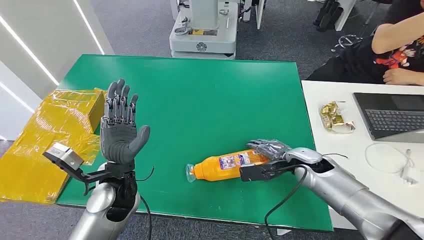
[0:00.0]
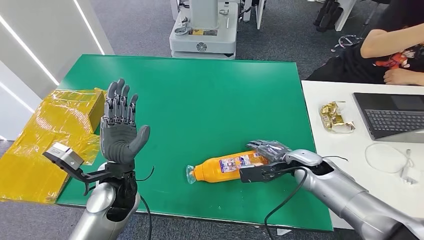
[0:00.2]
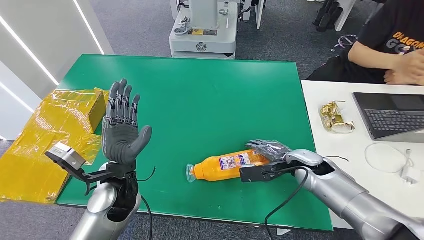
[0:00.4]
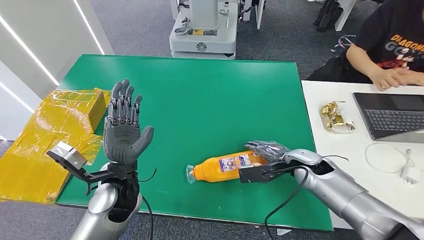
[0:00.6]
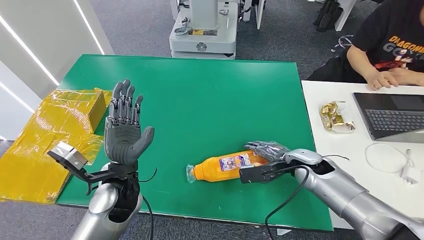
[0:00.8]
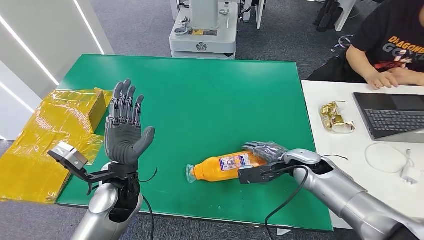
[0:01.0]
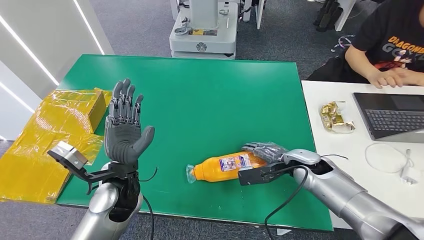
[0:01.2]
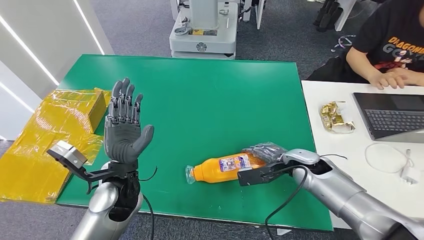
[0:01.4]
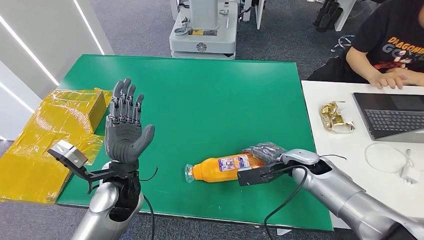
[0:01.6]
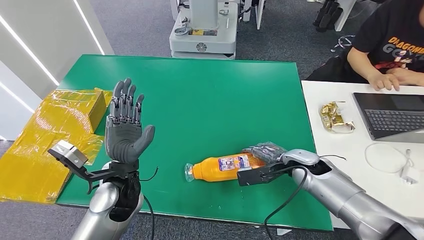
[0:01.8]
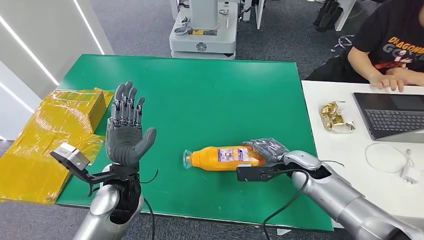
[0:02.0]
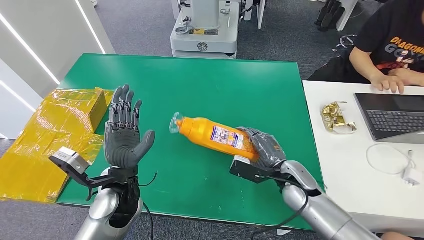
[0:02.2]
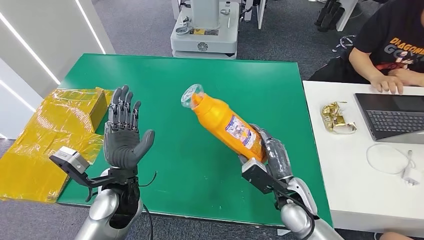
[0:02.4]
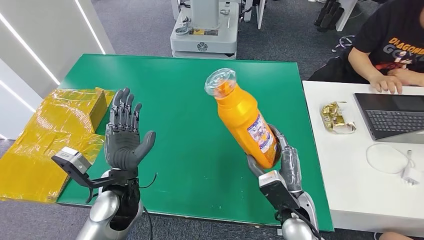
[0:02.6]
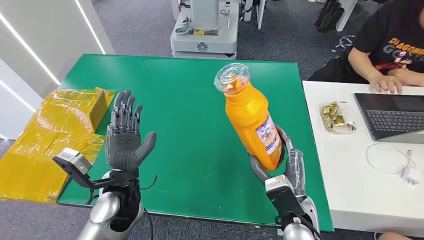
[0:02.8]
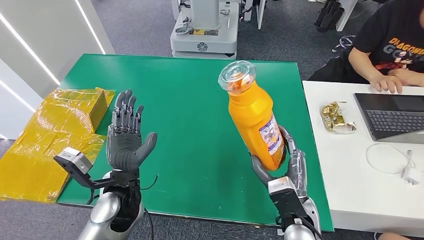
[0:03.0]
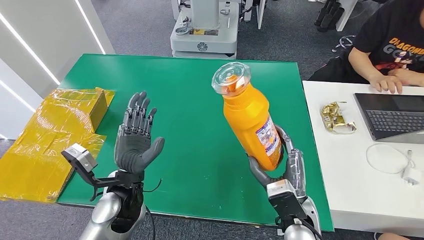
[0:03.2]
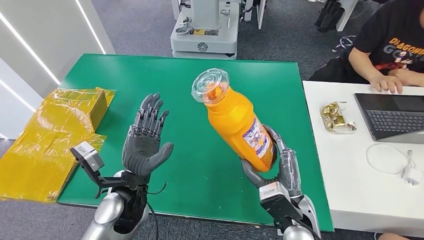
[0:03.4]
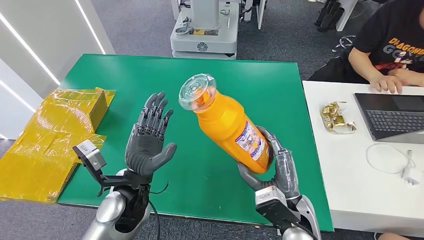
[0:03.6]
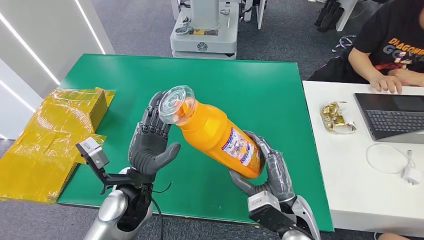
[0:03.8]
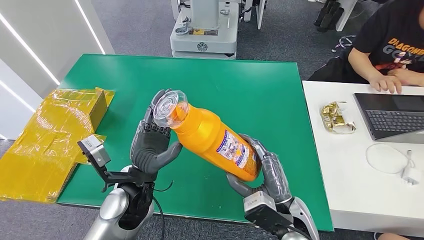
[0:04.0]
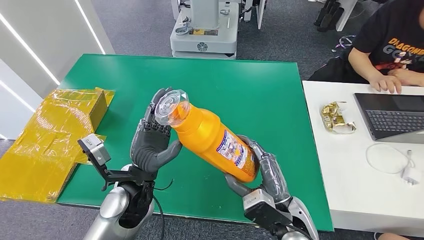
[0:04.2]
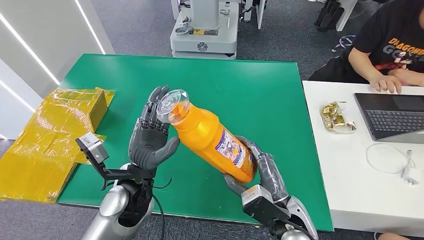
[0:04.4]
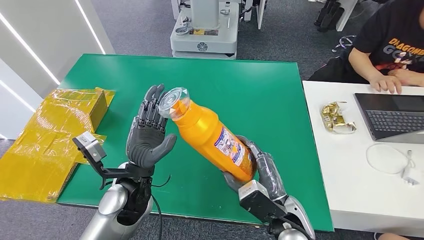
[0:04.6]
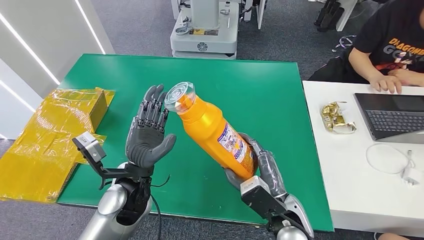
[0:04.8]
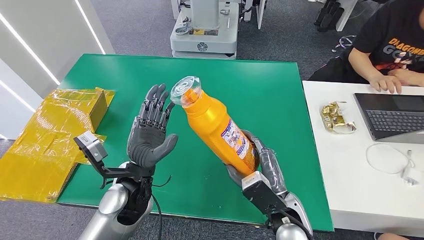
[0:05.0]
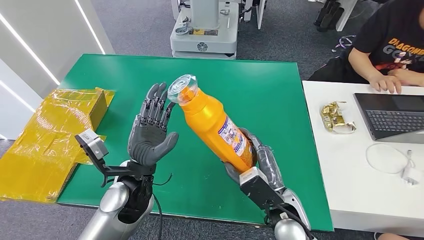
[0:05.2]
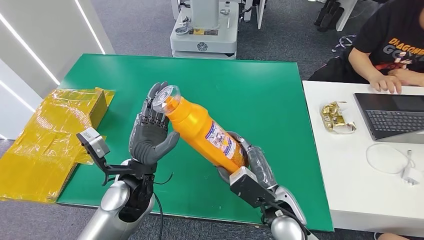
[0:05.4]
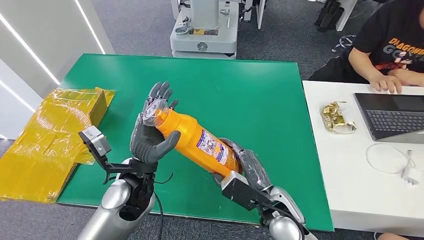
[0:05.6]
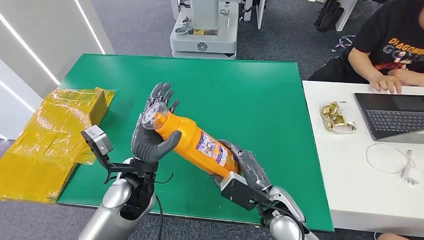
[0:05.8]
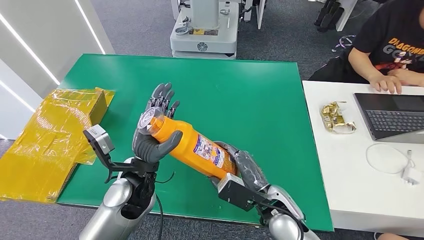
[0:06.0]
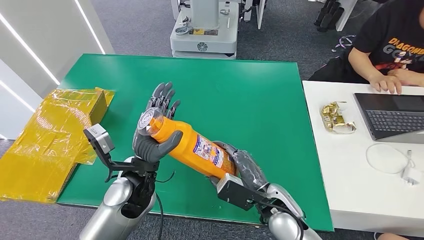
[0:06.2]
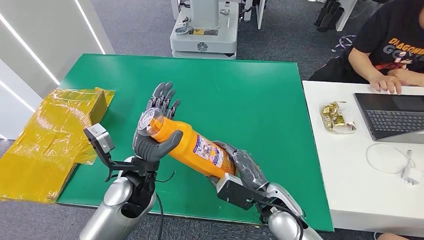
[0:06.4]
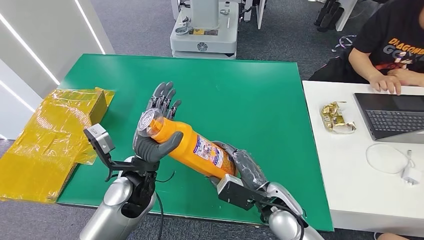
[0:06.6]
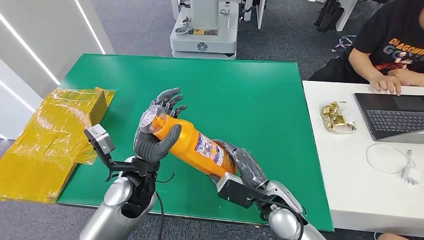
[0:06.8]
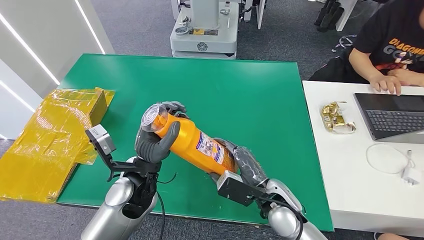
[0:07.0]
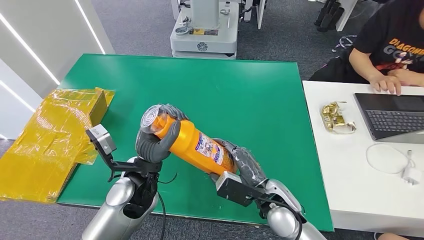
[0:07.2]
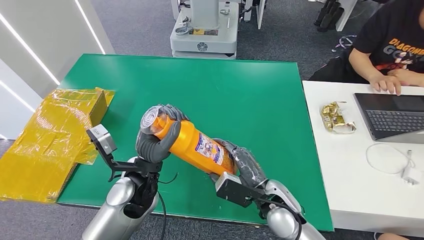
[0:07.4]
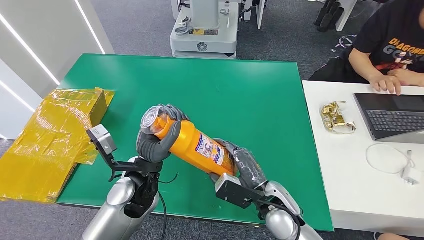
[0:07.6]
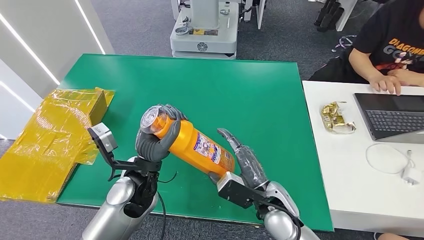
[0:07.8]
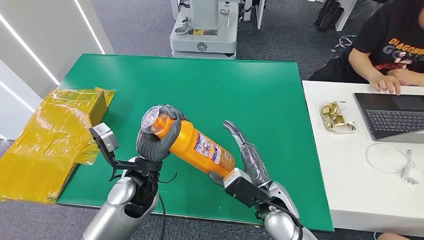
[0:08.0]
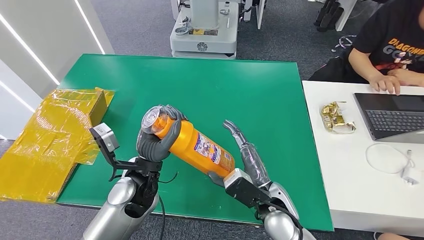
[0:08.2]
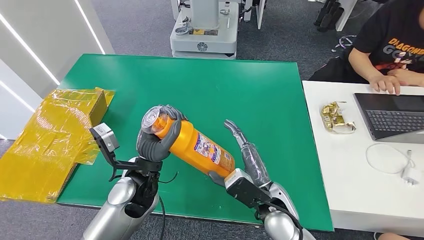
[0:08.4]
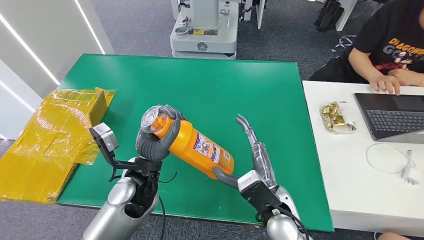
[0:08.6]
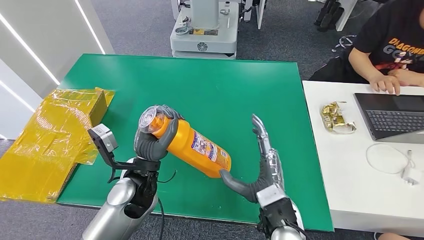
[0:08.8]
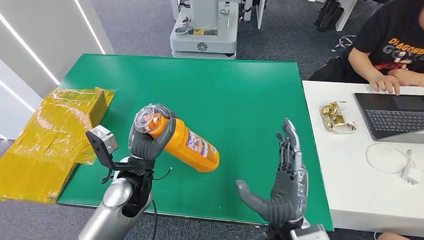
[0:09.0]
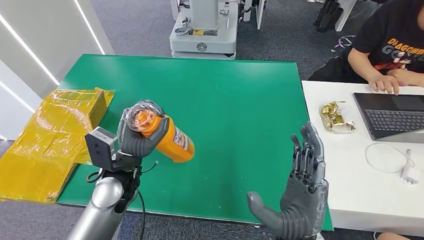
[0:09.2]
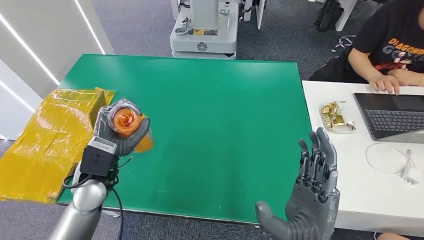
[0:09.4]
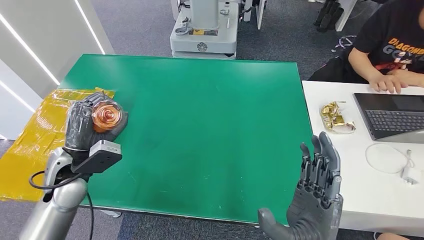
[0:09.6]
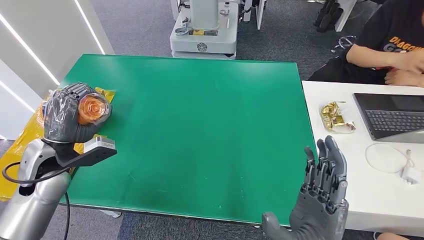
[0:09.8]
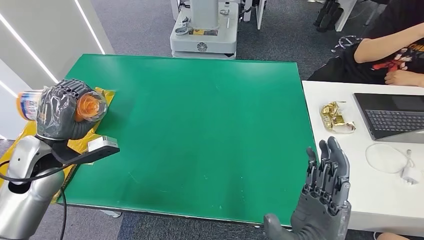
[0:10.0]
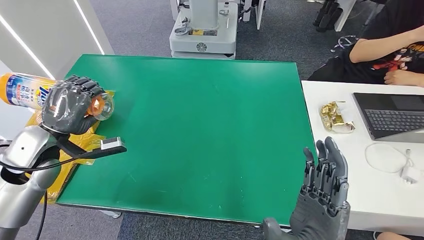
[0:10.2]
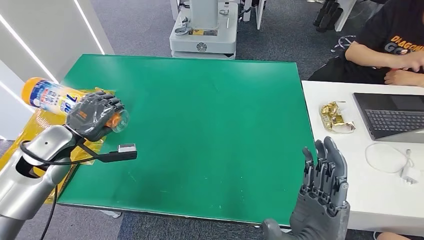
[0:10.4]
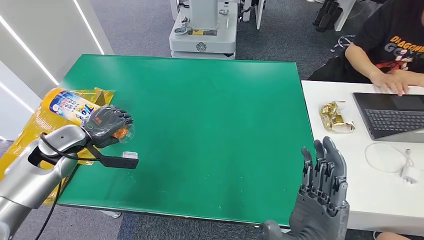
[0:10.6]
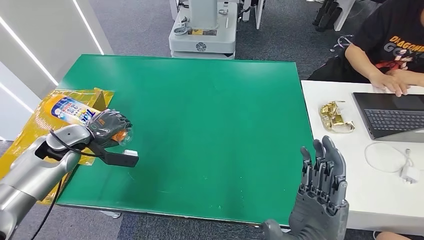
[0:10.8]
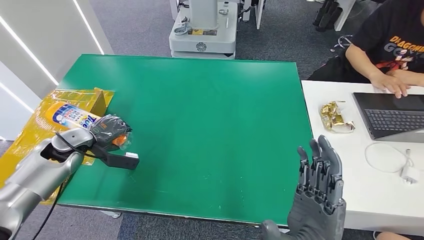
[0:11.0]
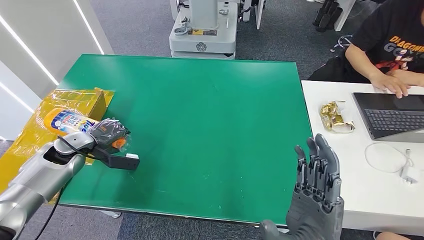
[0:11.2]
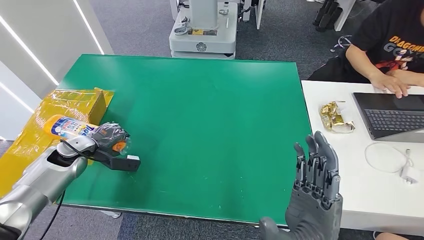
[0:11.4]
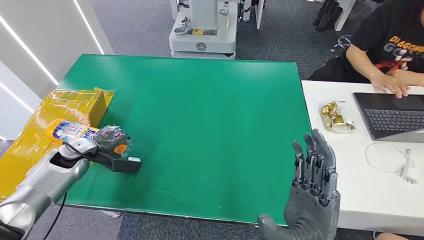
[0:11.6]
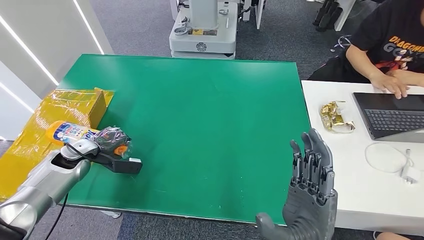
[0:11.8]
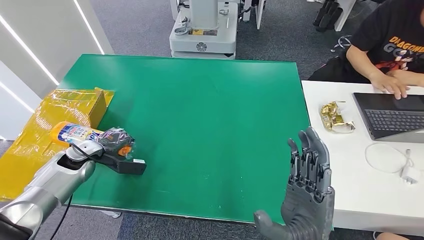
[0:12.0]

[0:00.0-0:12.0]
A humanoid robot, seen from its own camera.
Step, 0:00.0 to 0:04.2: Pick up the bottle from the table.
0:04.4 to 0:07.6: There are only small adjustments of the hands.
0:07.6 to 0:09.0: The right hand moves backward, roughly 10 cm.
0:10.4 to 0:12.0: The left hand moves downward, approximately 10 cm.

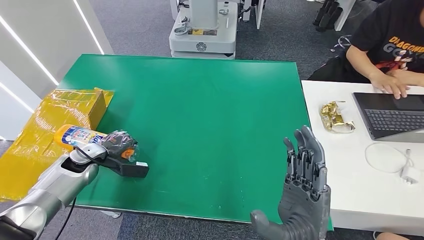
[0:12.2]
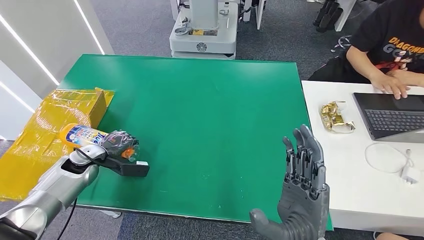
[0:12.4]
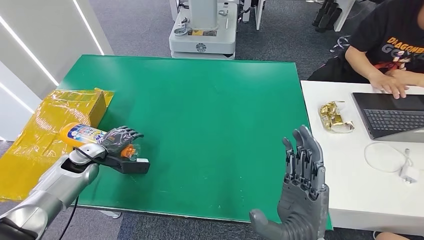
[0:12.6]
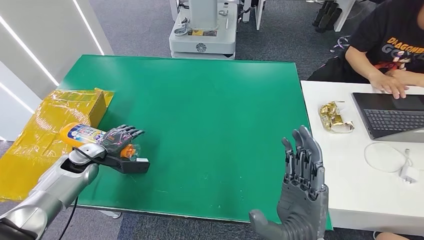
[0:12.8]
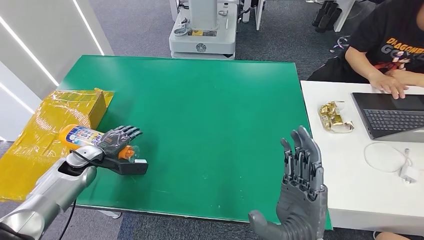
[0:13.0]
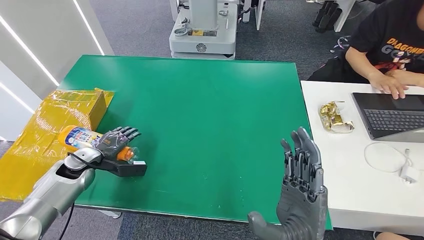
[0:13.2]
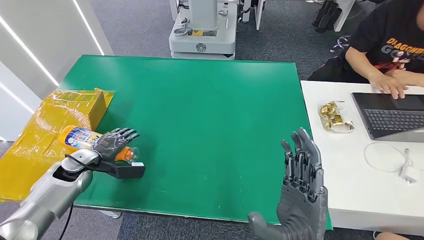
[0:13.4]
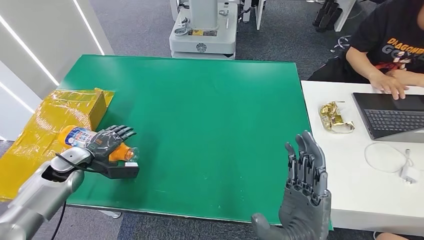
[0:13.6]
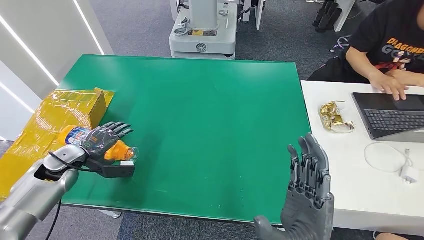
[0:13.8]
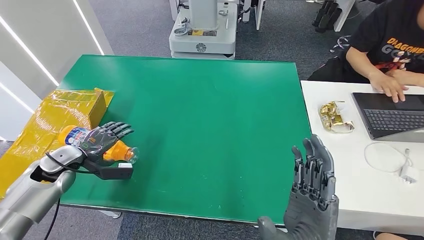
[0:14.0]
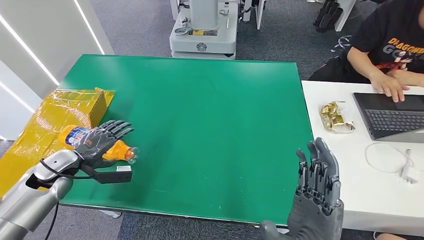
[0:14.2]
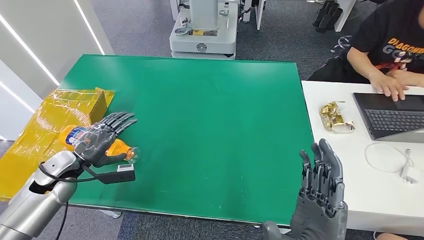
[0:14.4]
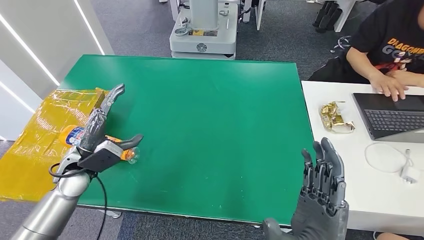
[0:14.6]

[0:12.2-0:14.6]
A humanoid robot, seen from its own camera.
Step, 0:12.2 to 0:14.6: Turn the bottle to the front side.
0:12.2 to 0:13.4: The hands stay close to where they were, moving slightly.
0:13.4 to 0:14.6: The left hand travels upward and to the right by approximately 10 cm.
